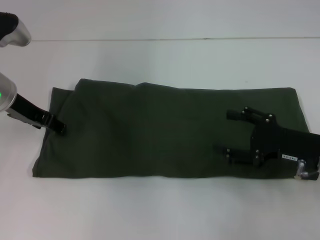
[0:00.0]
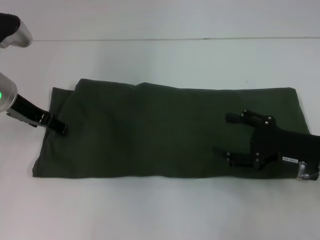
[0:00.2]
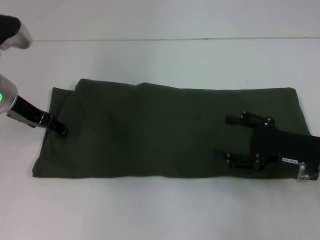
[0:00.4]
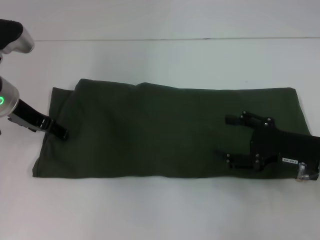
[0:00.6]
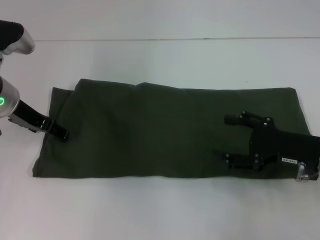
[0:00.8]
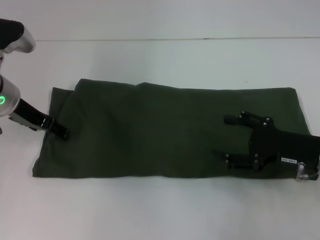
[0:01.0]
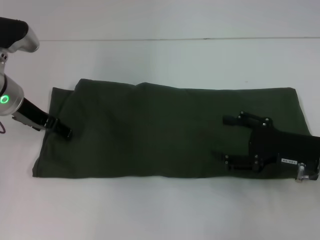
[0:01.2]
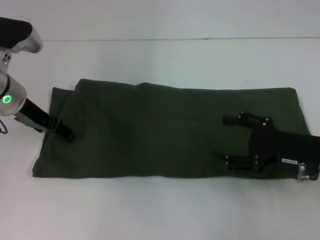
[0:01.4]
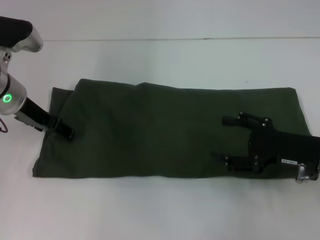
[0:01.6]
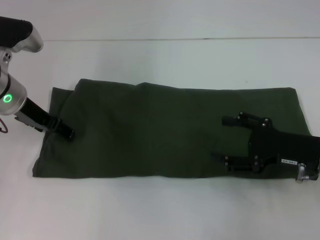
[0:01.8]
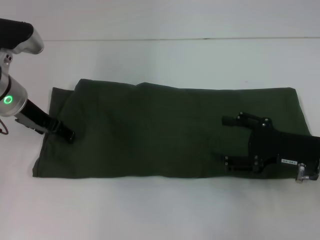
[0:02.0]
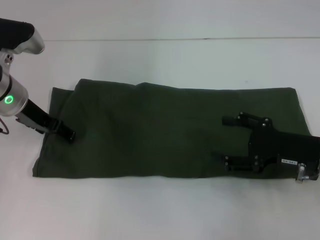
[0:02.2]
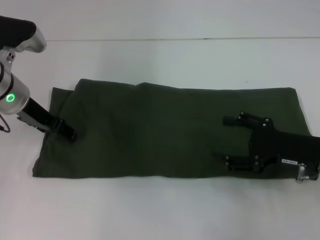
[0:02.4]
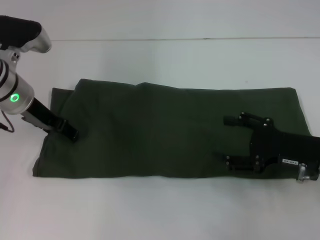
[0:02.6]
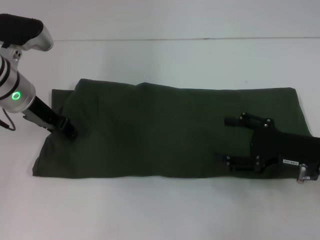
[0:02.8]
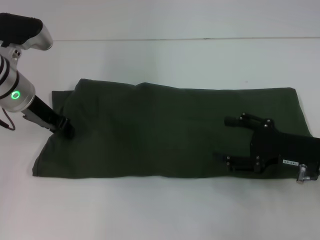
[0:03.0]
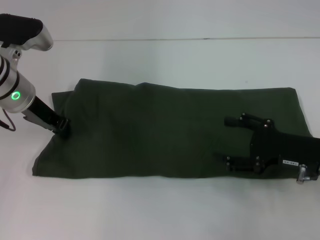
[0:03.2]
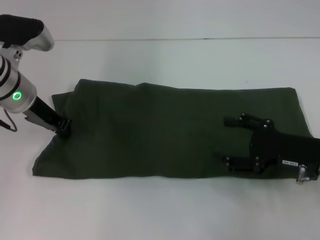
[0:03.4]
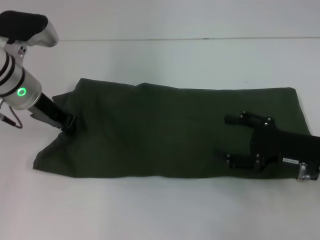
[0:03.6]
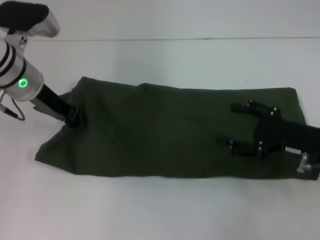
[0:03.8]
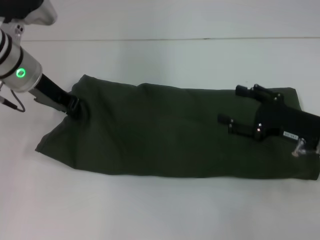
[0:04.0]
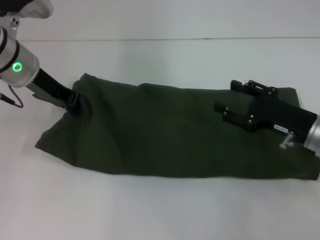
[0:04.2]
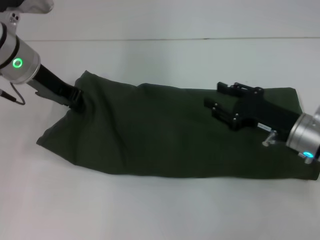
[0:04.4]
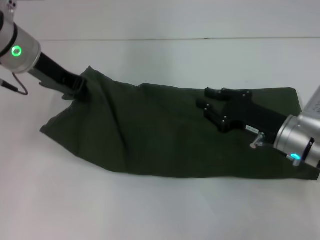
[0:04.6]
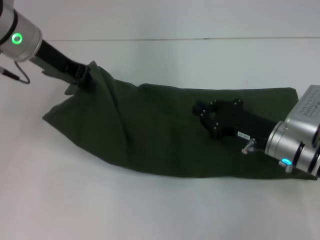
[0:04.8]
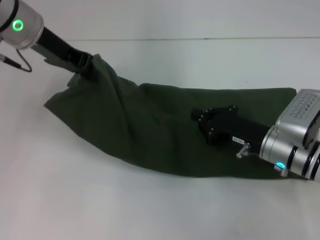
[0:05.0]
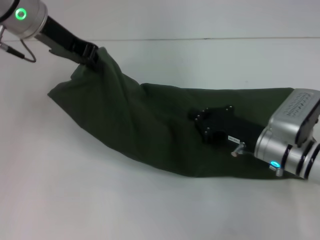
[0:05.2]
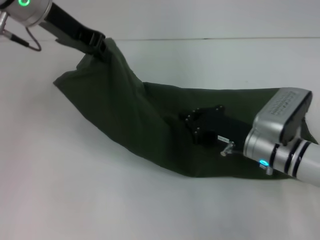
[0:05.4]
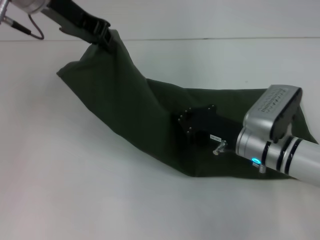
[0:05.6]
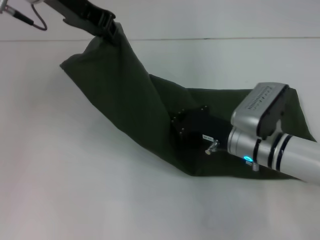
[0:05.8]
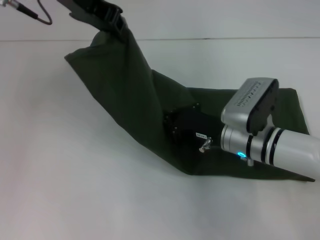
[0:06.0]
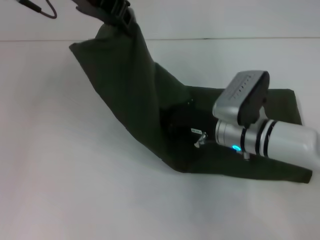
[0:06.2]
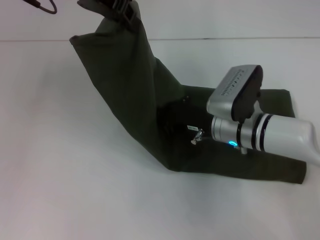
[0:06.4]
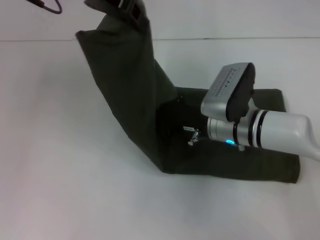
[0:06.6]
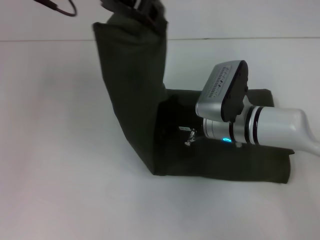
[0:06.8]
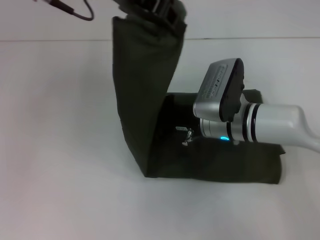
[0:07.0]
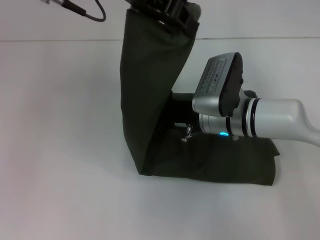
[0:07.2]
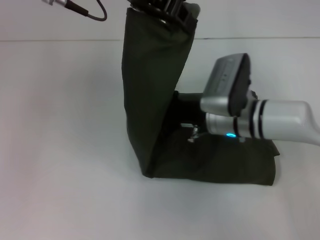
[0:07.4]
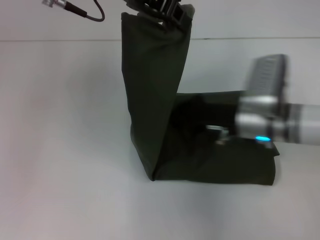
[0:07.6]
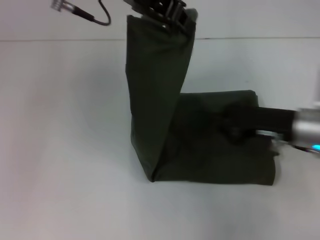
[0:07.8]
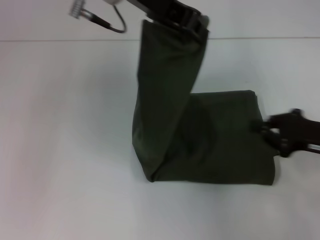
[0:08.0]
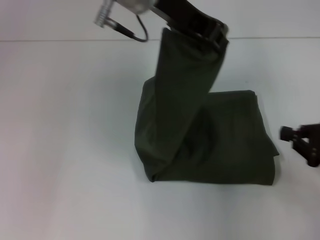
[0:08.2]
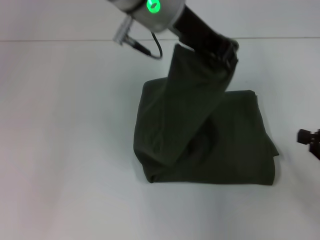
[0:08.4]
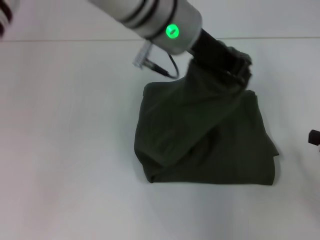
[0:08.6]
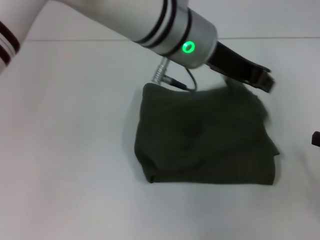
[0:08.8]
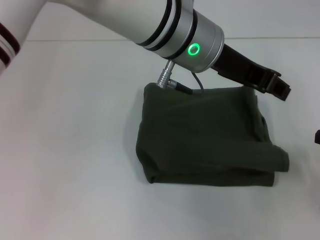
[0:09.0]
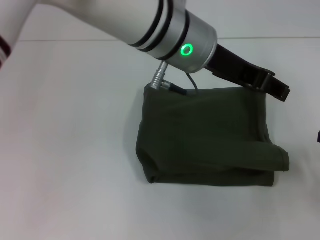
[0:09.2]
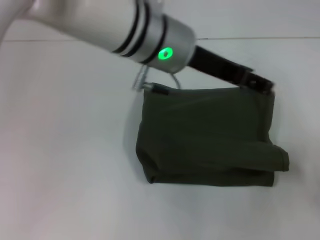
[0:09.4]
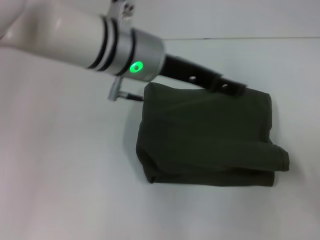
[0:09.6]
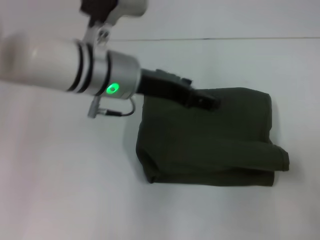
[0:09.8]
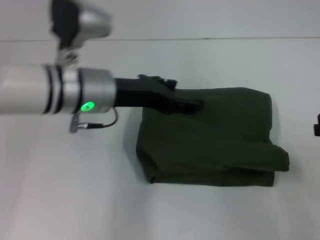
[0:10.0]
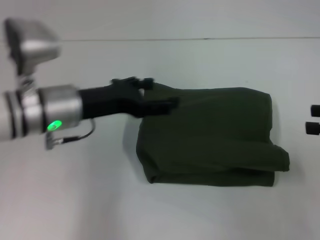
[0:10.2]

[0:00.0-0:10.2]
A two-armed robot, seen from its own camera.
Step, 0:00.0 to 0:09.2: Fold the clothes with your left hand.
0:00.0 to 0:01.4: The left gripper opens its fingers.
0:01.4 to 0:03.0: The left gripper closes its fingers.
0:03.0 to 0:04.4: The left gripper moves approximately 5 cm, and closes up.
0:04.4 to 0:05.8: The left gripper moves upward, about 10 cm. The right gripper travels to the left by approximately 10 cm, and closes up.
0:05.8 to 0:07.2: The left gripper is displaced to the right by some 5 cm. Meanwhile the right gripper changes place by roughly 5 cm.
0:07.2 to 0:08.8: The right gripper goes some 30 cm to the right and backward, while the left gripper travels to the right and downward by about 15 cm.
0:08.8 to 0:10.2: The left gripper goes some 20 cm to the left and downward, and opens its fingers, while the right gripper shifts roughly 10 cm upward.

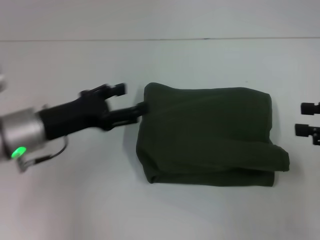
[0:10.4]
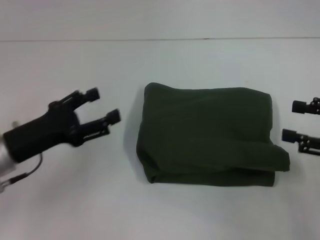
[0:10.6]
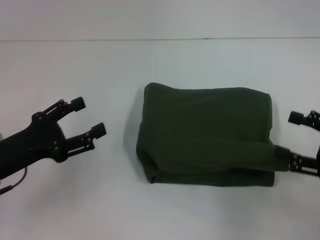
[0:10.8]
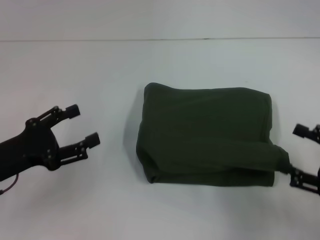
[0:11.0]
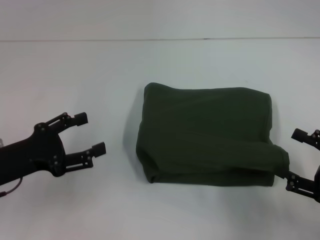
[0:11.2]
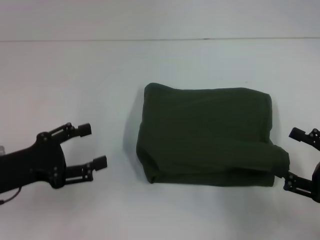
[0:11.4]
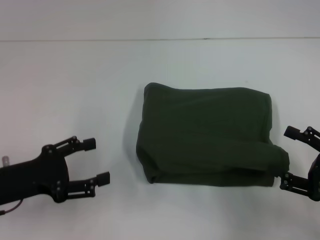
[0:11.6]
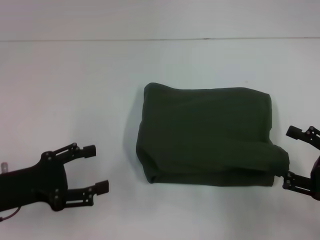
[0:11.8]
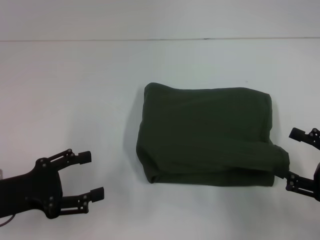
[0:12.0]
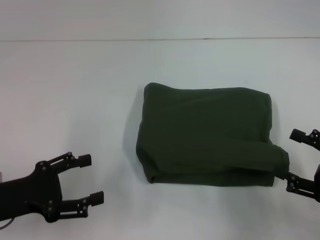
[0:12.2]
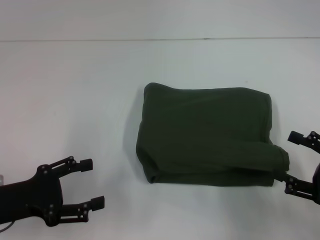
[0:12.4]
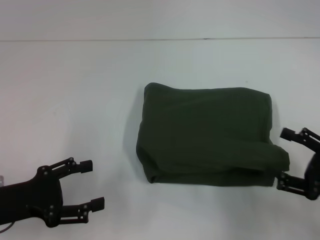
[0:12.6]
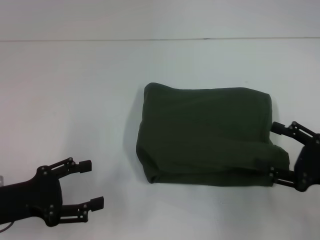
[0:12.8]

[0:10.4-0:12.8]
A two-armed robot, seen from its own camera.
0:10.4 to 0:11.6: The left gripper goes some 10 cm to the left and backward. Meanwhile the right gripper moves downward and backward, roughly 10 cm, and opens its fingers.
0:11.6 to 0:12.8: There are only small adjustments of the grippers.
